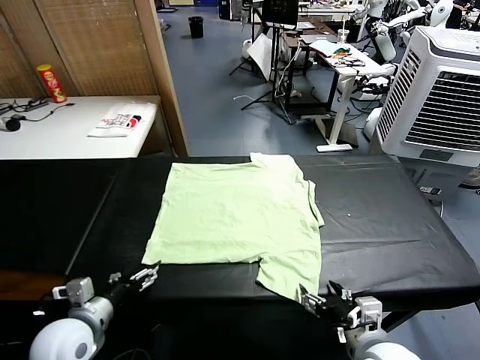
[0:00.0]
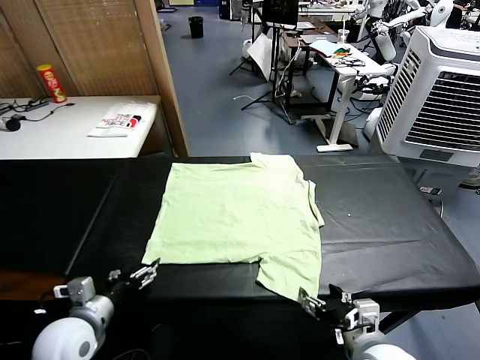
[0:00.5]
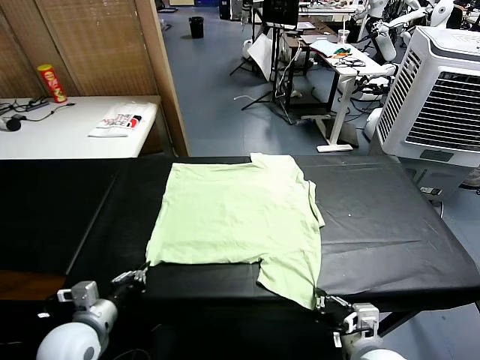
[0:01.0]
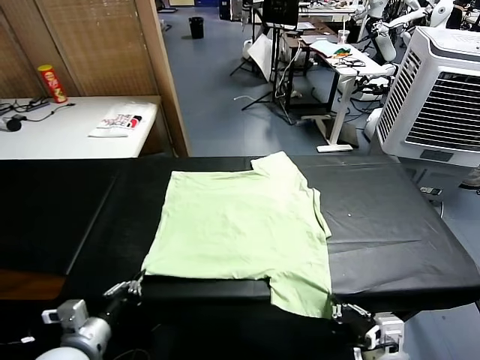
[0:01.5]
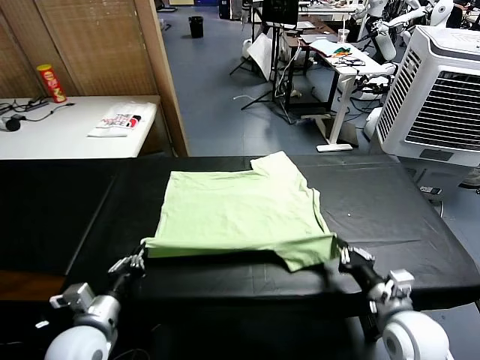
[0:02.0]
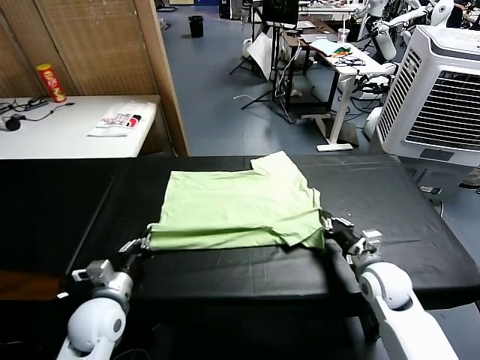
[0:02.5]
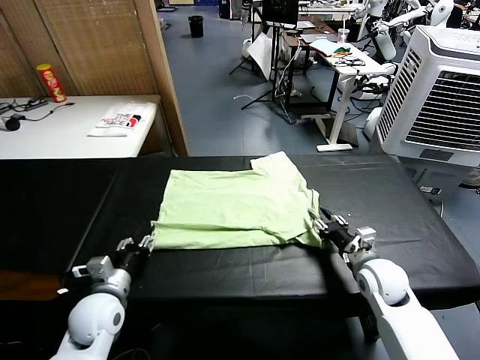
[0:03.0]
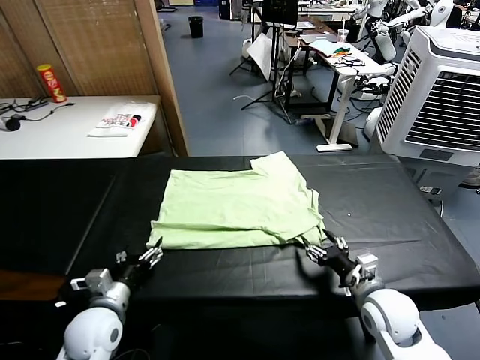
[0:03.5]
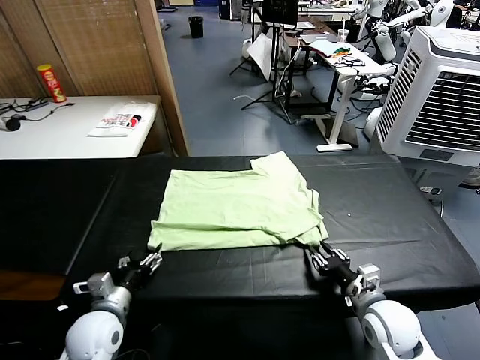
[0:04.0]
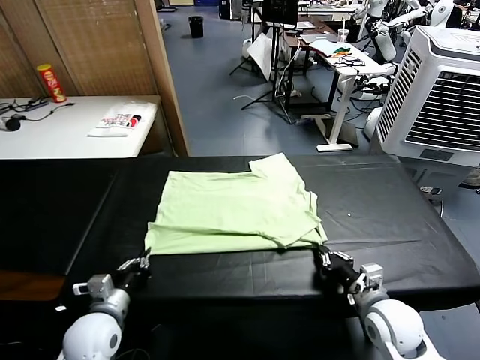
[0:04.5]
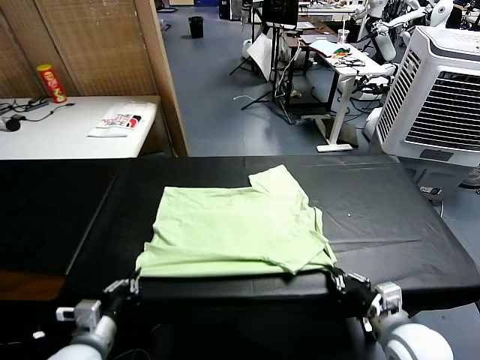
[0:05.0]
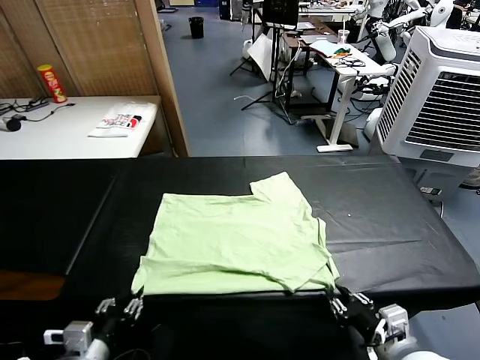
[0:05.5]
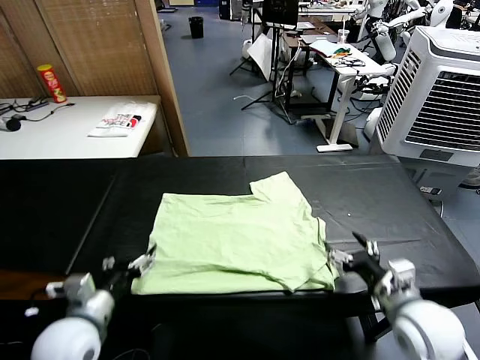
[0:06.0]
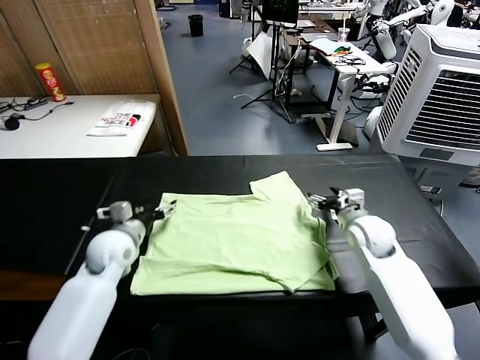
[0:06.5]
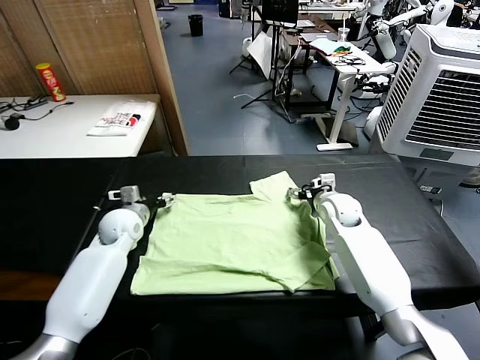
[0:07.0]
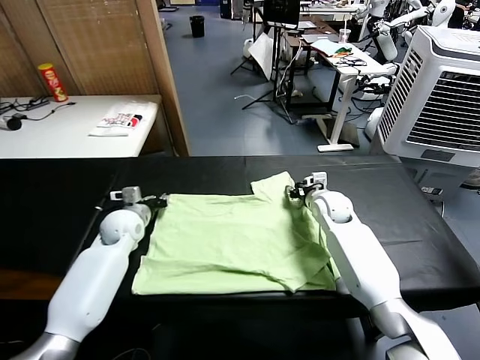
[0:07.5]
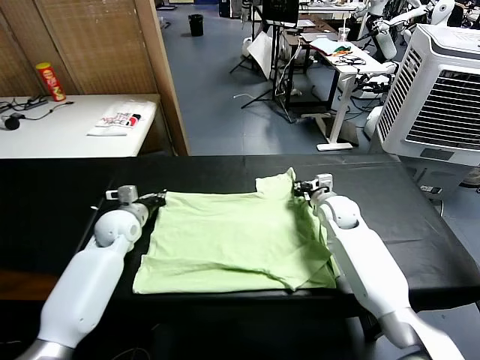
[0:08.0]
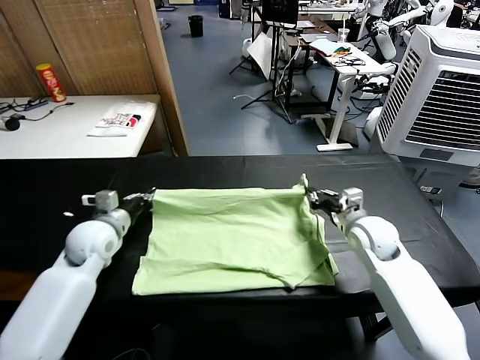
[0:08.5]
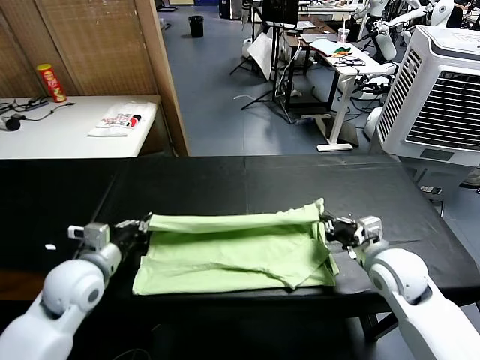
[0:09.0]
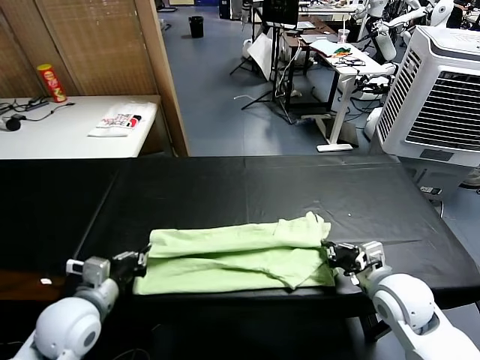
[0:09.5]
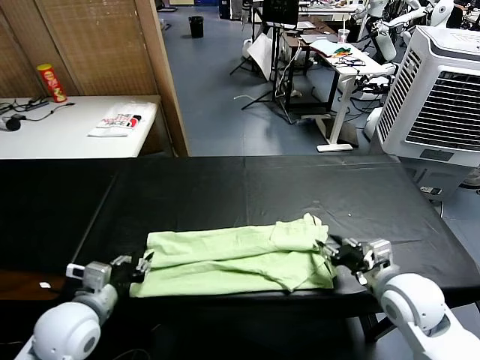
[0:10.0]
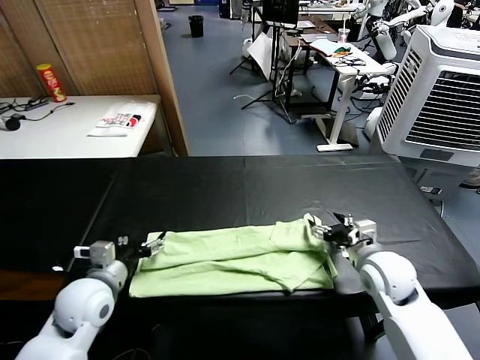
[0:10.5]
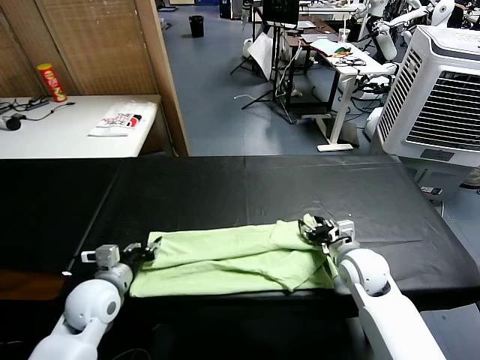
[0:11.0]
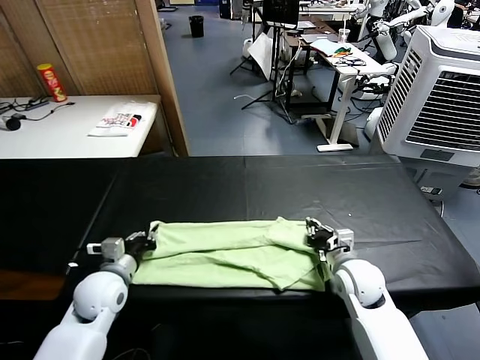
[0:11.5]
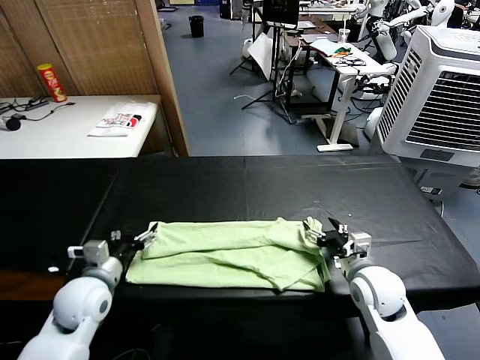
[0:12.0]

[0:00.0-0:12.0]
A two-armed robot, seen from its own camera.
Task of the whole recording: fold and organize the clothes.
Step, 0:00.0 to 0:01.0: use both grippers simultaneously to clamp the lower edge of the clothing fabric.
Step, 0:01.5 to 0:03.0: use both grippers to drag the lower edge of the fabric forward and fold it over the upper edge.
Step, 0:03.5 to 0:05.5: Drag the clothes downward with both gripper.
Step, 0:06.0 to 0:07.5: use both grippers simultaneously to clamp the upper edge of the clothing fabric.
Step, 0:08.0 to 0:10.0: use both grippers to drag the upper edge of the fabric backward and fold it over the lower edge.
0:02.0 to 0:04.0: The left gripper shifts by approximately 5 cm, and opens its fingers; the right gripper opens and closes again.
0:04.0 to 0:06.0: The left gripper goes roughly 10 cm upward, reaches approximately 10 cm backward, then returns, and closes and opens again, while the right gripper travels upward and forward by approximately 10 cm, and opens.
0:06.0 to 0:08.0: The two grippers go some 20 cm forward. The right gripper closes. The left gripper closes up.
0:08.0 to 0:10.0: The two grippers go roughly 20 cm backward. The left gripper opens up; the right gripper opens.
0:10.0 to 0:12.0: The left gripper goes some 5 cm forward, and opens, while the right gripper closes, then opens again.

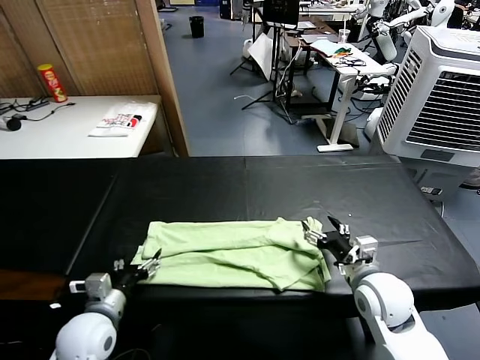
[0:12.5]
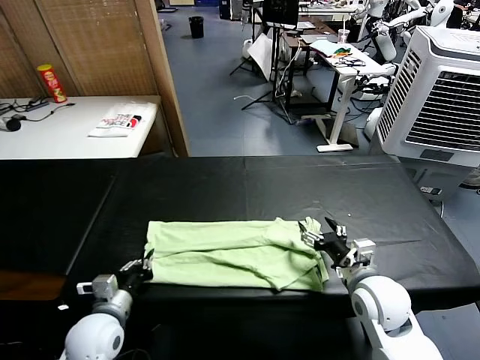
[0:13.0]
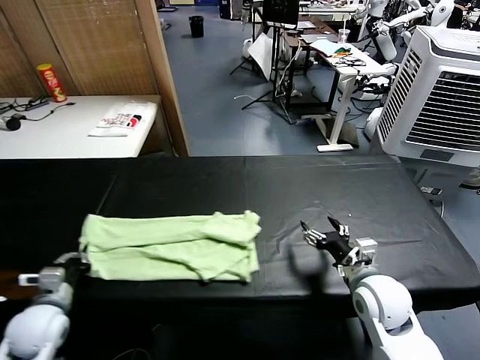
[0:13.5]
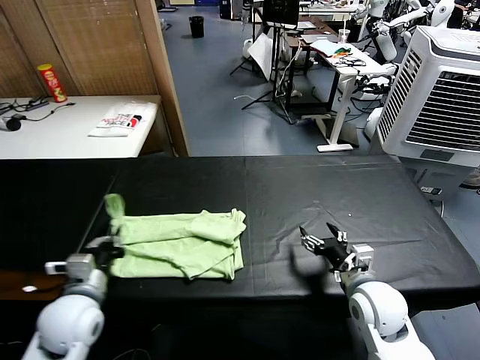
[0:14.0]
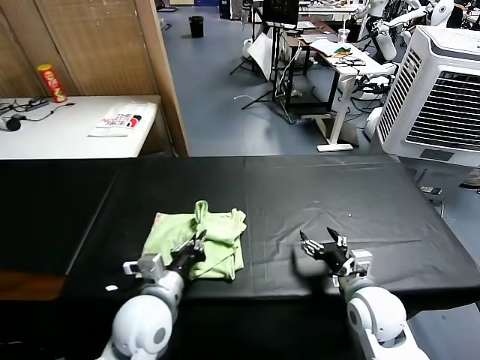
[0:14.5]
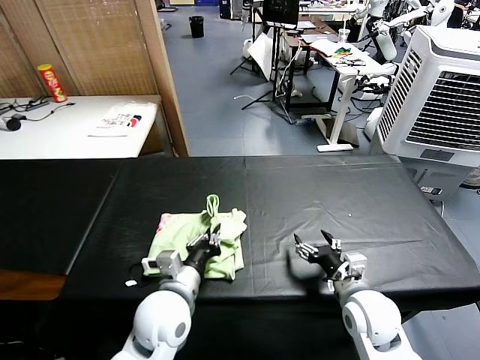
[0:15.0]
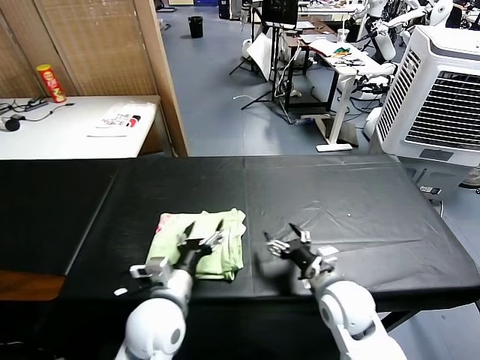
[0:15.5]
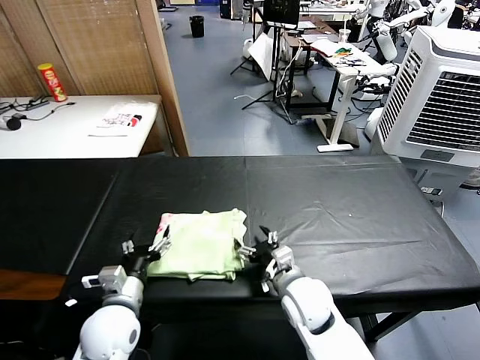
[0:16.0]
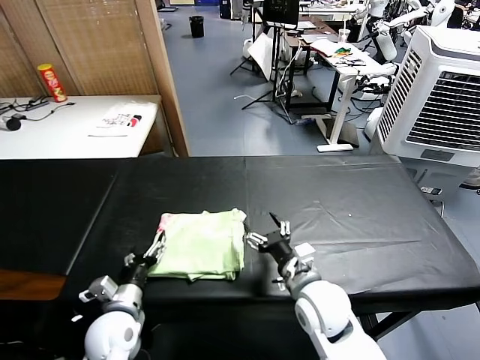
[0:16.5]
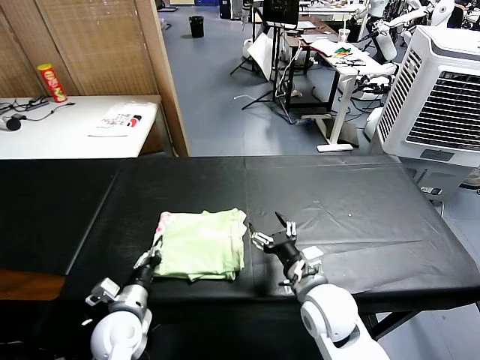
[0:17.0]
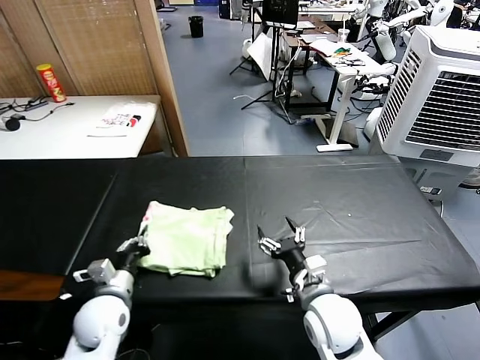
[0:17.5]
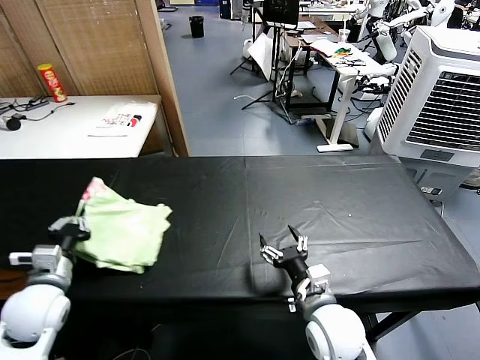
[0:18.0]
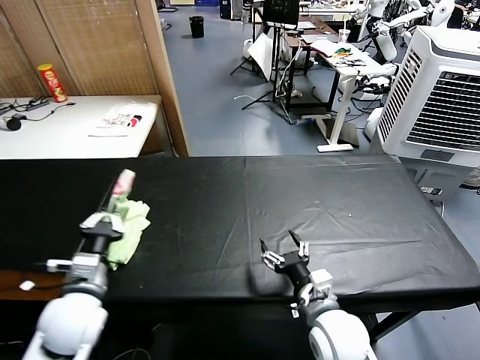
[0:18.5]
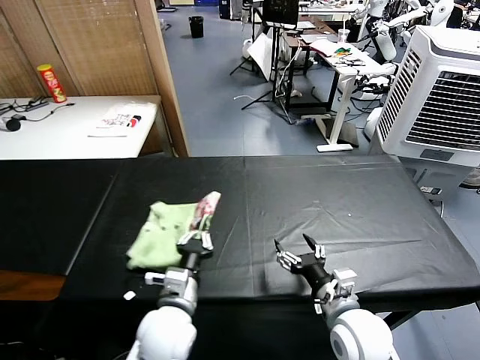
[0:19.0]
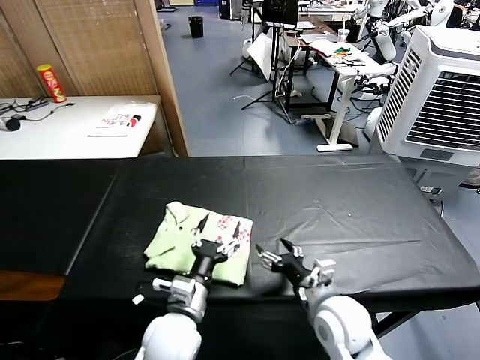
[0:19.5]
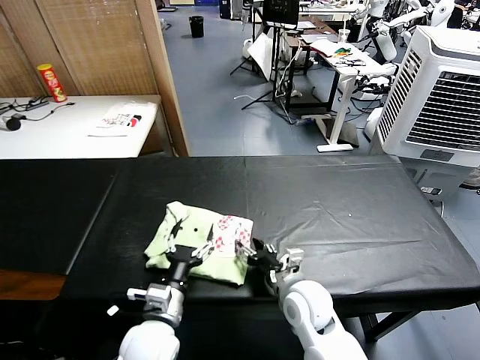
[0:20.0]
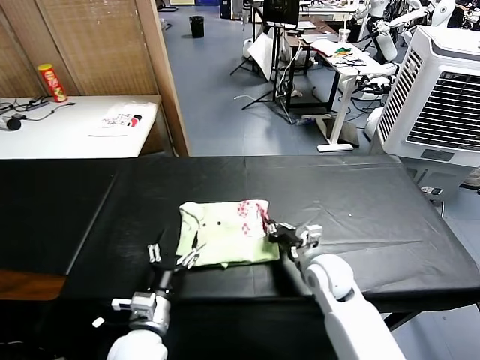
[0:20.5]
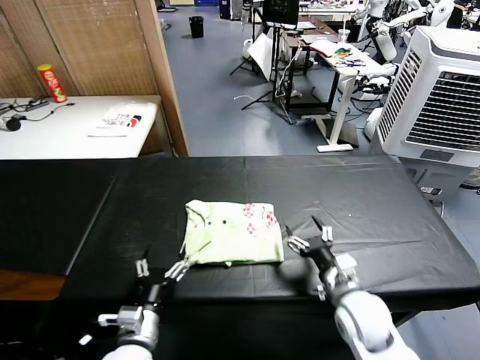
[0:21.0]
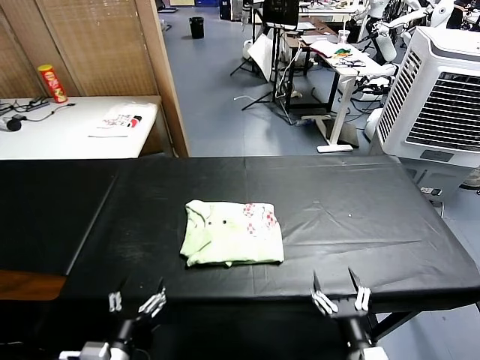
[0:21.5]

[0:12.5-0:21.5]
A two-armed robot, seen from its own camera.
Task of the whole recording: fold and organize the clothes.
Step, 0:13.0 to 0:15.0: use the left gripper to drag the left edge of the fabric to the left and folds it over the right edge.
Step, 0:15.5 to 0:19.0: Flip the folded clothes over with left gripper.
Step, 0:19.5 to 0:20.5: Drag the clothes to the center of the table.
0:12.5 to 0:14.5: The left gripper travels to the right and upward by some 15 cm, and closes up.
0:14.5 to 0:17.0: The left gripper moves downward and to the left, roughly 15 cm, and opens, then closes once more, while the right gripper travels to the left by approximately 10 cm.
0:17.0 to 0:19.5: The left gripper is displaced to the right and upward by about 15 cm, and opens its fingers.
0:19.5 to 0:21.5: The right gripper moves backward, roughly 15 cm, and closes and opens again, while the left gripper goes about 15 cm to the left and backward.

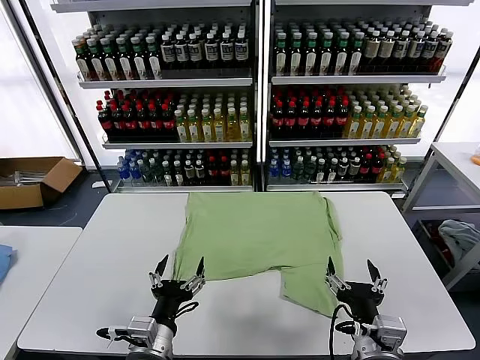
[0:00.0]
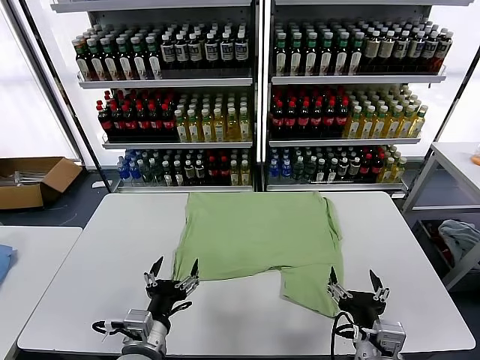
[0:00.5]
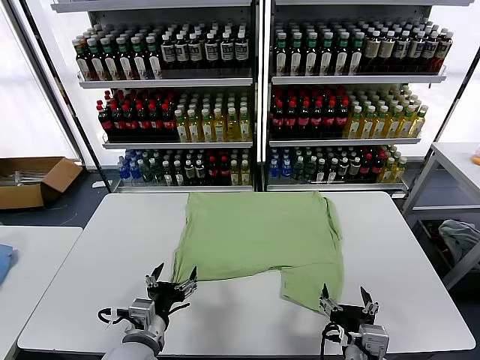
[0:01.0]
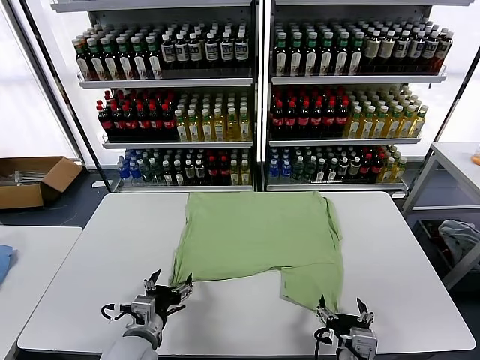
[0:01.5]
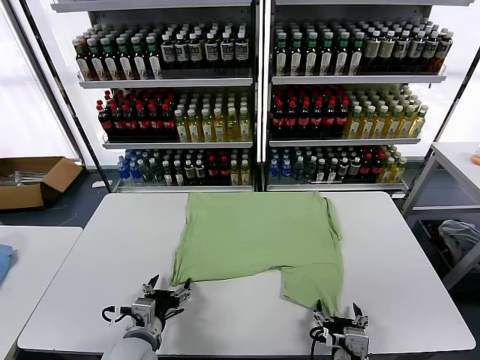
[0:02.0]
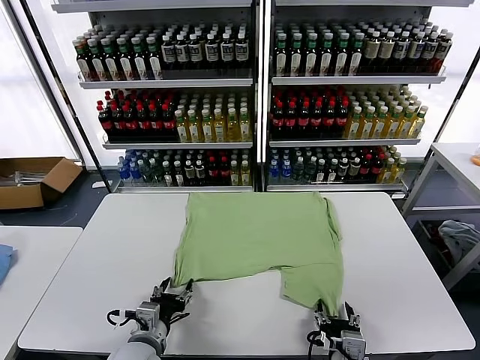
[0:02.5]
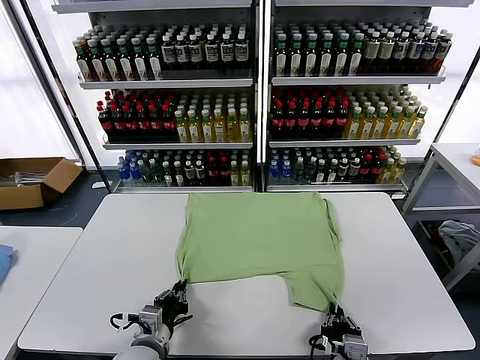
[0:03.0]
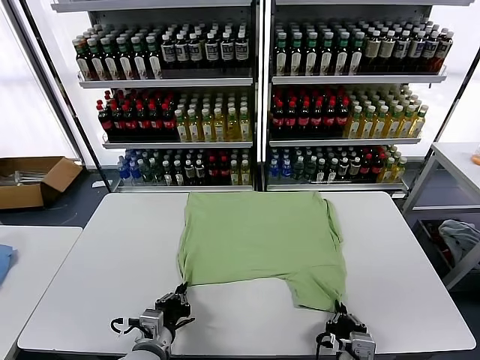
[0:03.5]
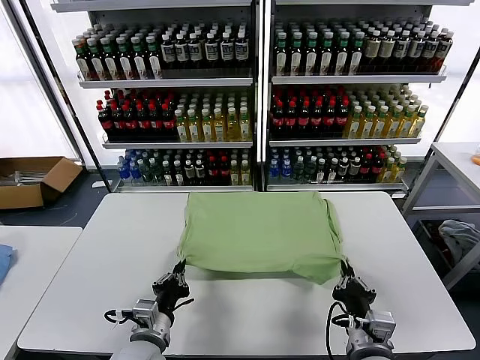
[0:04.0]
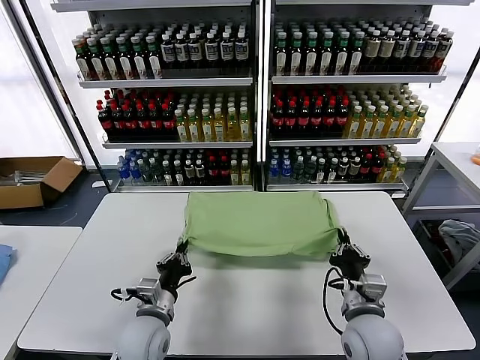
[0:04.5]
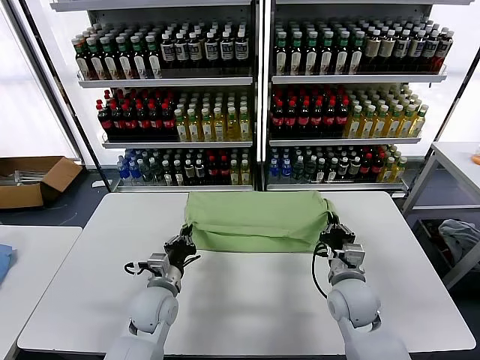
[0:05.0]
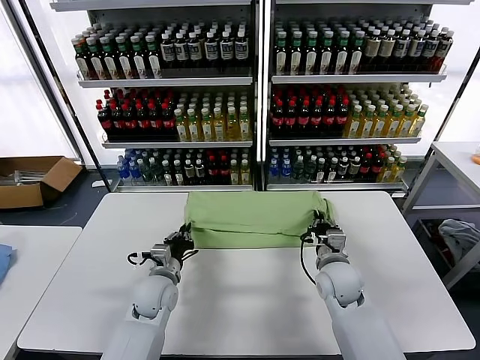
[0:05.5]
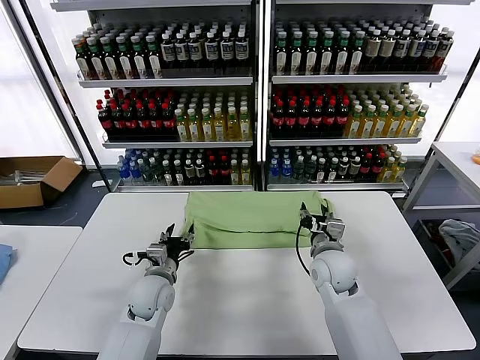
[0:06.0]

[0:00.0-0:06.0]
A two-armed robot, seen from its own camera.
Task of the whole recording: fold and organize the clothes.
Step, 0:00.0 to 0:03.0: use both grippers simultaneously to clamp the lower edge of the clothing fabric.
0:02.0 to 0:04.0: The left gripper closes, while the right gripper moves approximately 5 cm, and closes its fingers.
0:04.0 to 0:06.0: Both grippers move forward, some 15 cm. The left gripper opens its fingers; the right gripper opens up.
